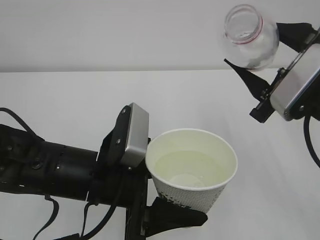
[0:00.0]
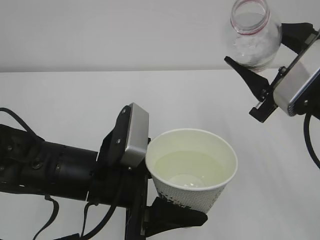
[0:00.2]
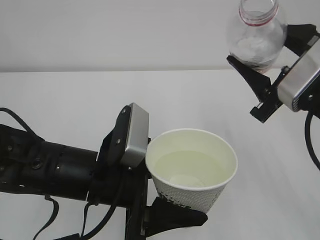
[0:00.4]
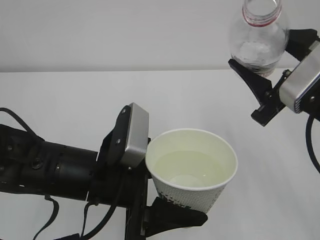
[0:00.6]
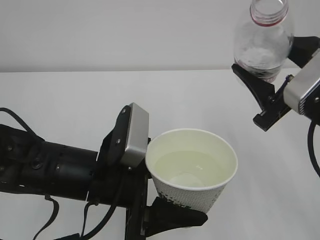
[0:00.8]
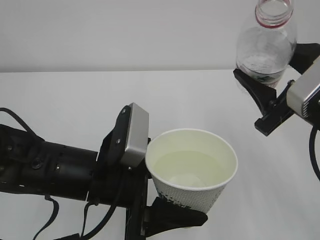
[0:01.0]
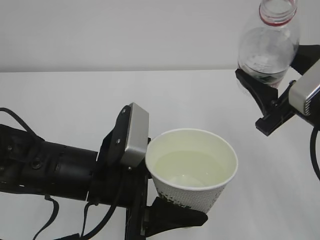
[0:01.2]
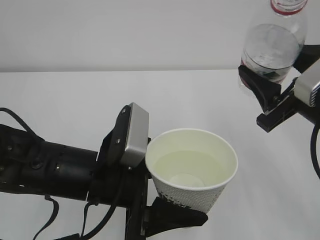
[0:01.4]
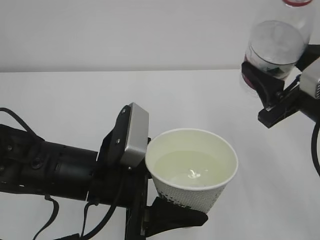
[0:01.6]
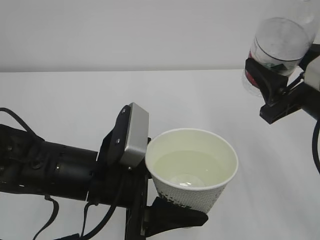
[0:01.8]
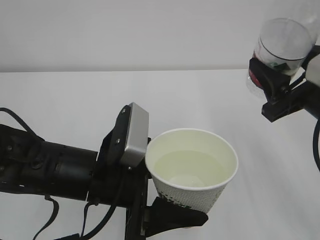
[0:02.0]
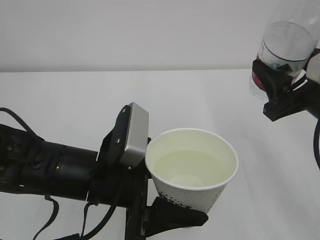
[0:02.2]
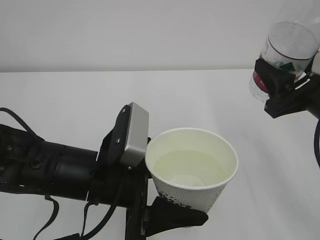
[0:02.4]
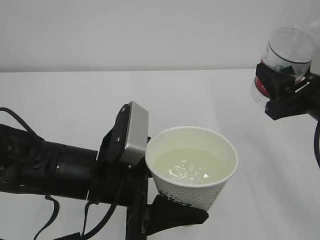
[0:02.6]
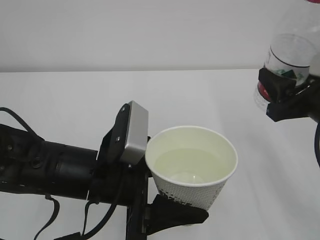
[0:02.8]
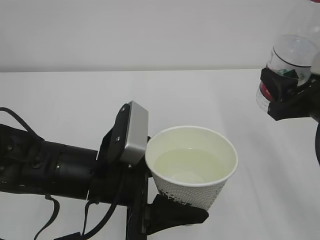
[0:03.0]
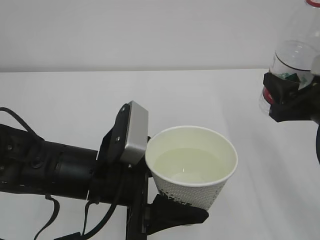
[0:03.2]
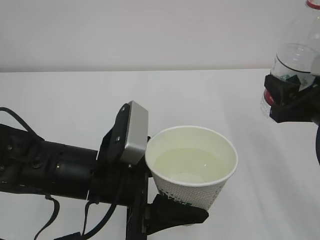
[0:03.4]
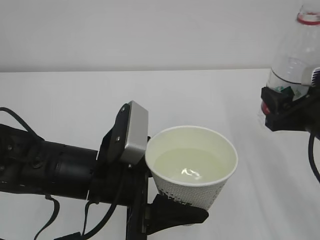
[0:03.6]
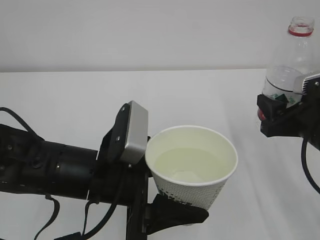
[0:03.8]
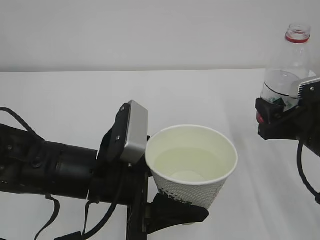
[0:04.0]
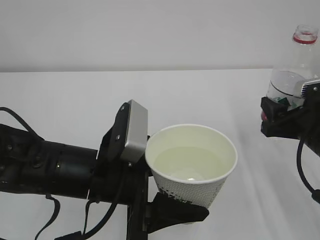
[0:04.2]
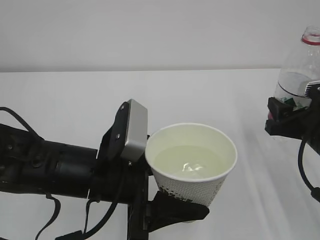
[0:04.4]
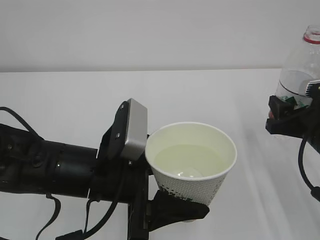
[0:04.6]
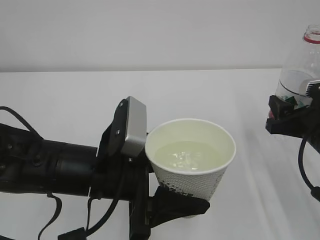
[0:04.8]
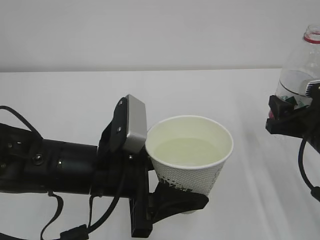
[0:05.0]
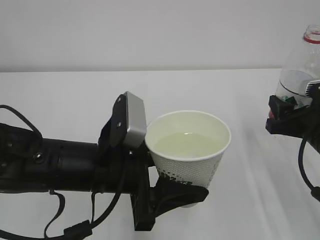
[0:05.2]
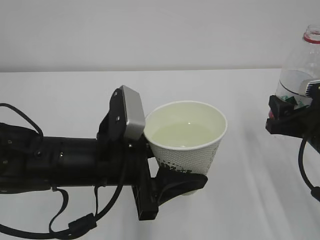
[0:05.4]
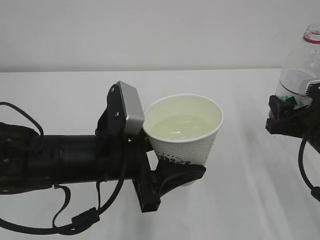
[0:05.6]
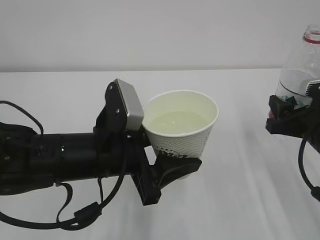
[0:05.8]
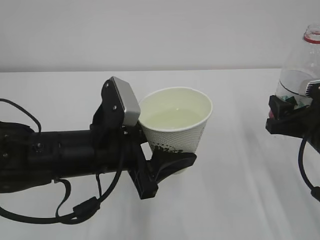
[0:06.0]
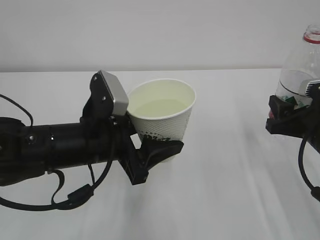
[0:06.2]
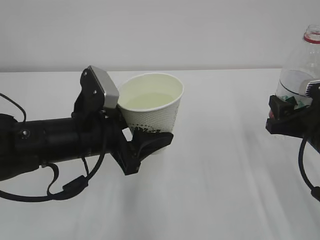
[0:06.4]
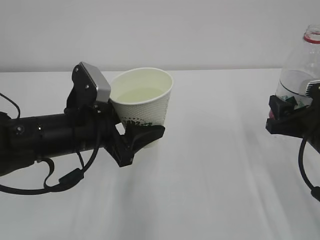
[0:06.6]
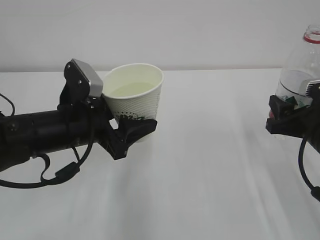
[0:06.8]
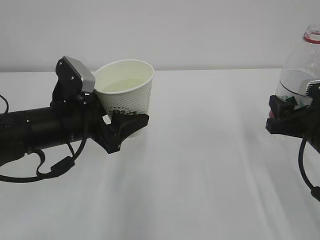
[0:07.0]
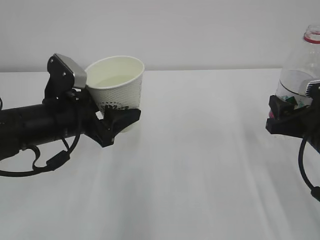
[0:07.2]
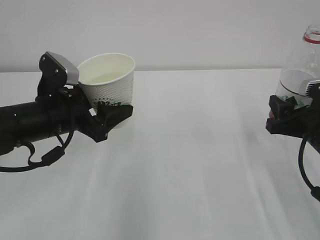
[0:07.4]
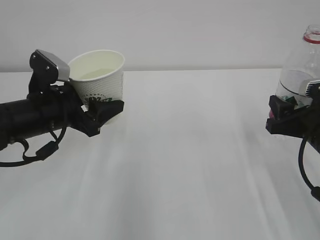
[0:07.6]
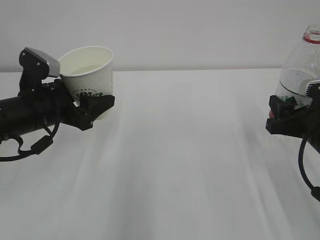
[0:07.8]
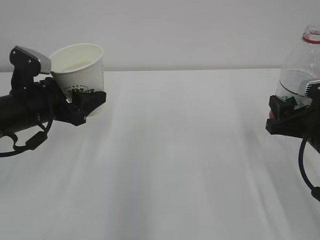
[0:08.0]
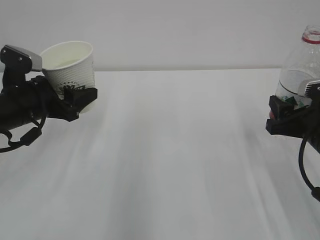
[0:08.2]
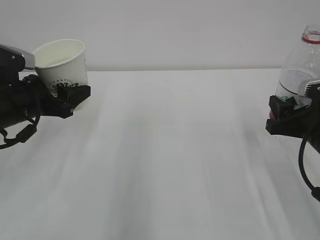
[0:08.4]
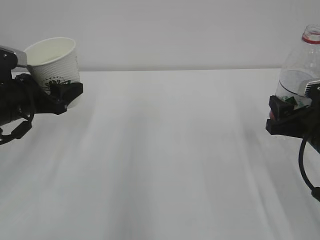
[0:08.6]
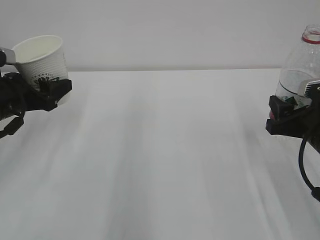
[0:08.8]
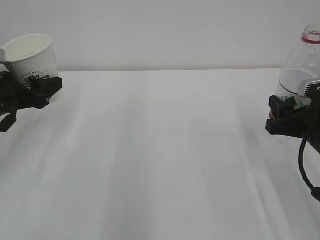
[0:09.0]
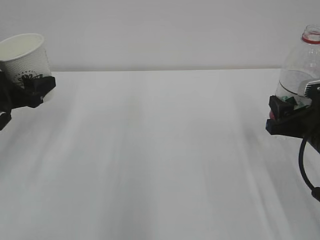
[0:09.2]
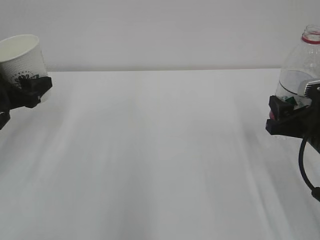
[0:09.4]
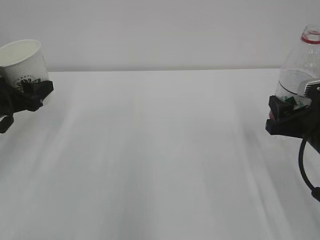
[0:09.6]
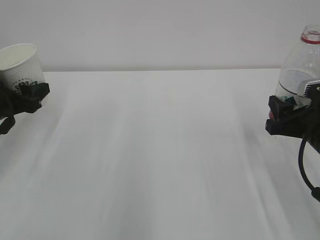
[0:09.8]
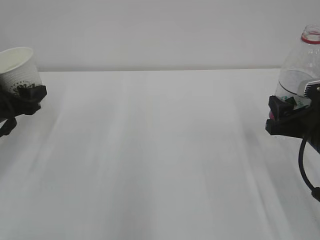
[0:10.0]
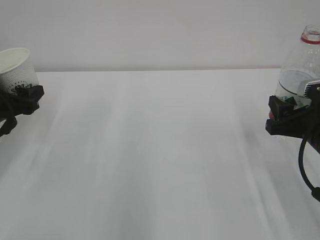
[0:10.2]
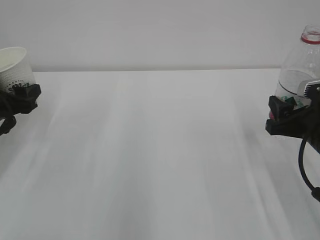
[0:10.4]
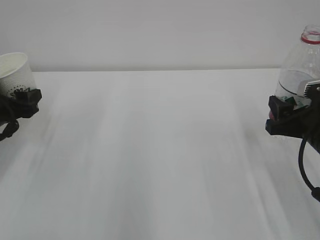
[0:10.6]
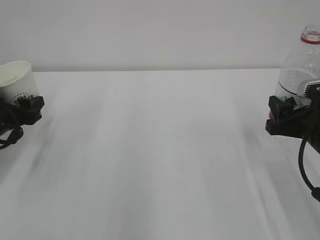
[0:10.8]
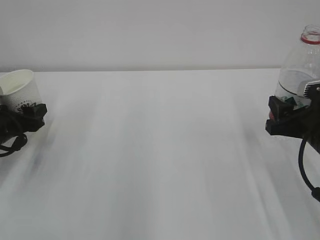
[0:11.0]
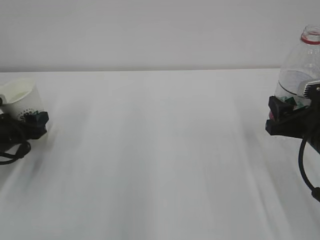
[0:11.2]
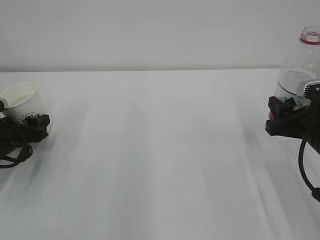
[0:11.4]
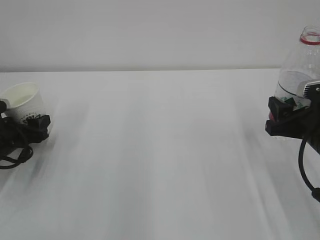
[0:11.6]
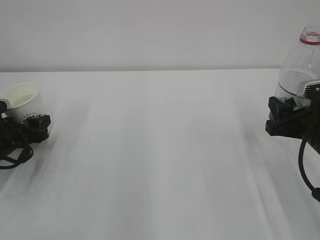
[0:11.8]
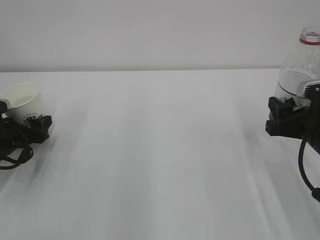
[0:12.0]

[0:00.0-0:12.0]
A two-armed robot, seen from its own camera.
0:03.0 to 0:04.4: The right gripper heads downward, covering some 5 cm.
0:06.0 to 0:07.6: The left gripper moves to the left and forward, roughly 10 cm.
0:07.6 to 0:09.0: The left gripper travels to the left by about 10 cm.
0:09.0 to 0:10.4: The left gripper changes place by approximately 5 cm.
0:10.4 to 0:12.0: The left gripper goes approximately 10 cm downward.

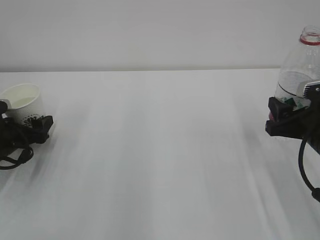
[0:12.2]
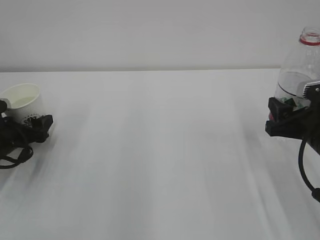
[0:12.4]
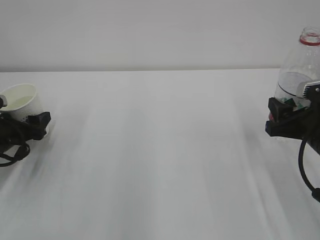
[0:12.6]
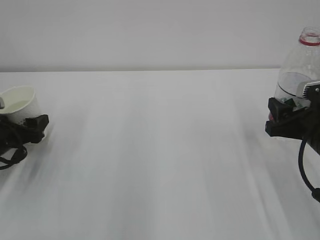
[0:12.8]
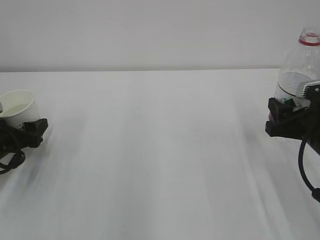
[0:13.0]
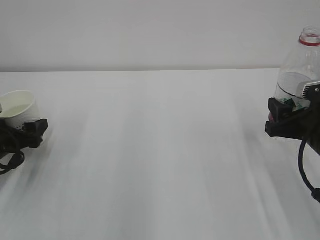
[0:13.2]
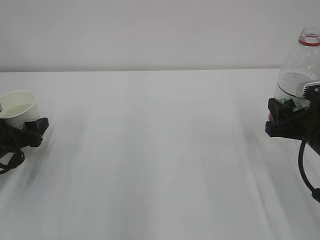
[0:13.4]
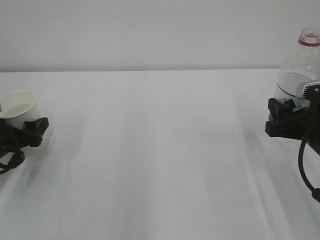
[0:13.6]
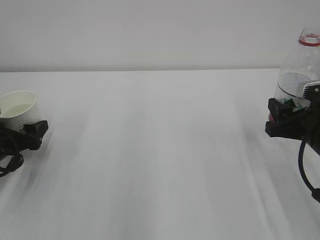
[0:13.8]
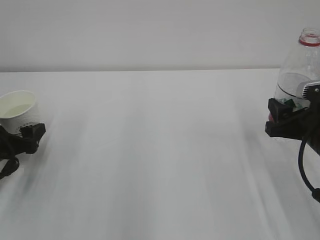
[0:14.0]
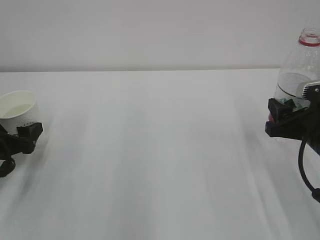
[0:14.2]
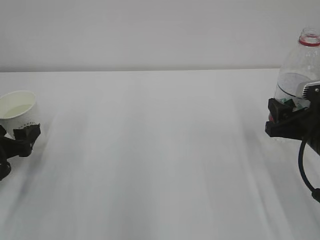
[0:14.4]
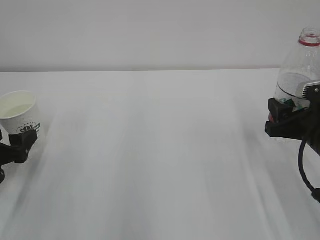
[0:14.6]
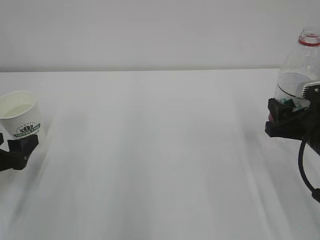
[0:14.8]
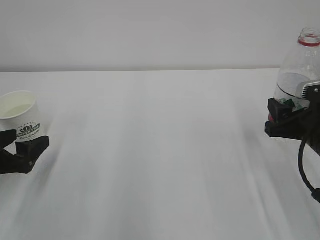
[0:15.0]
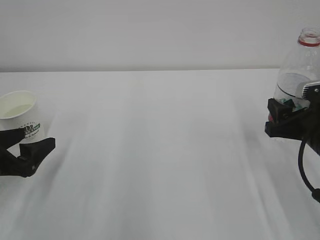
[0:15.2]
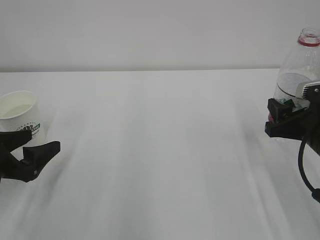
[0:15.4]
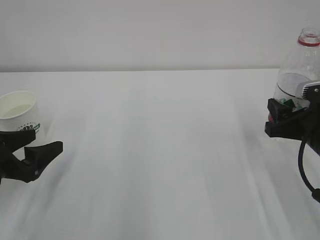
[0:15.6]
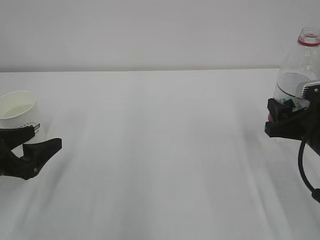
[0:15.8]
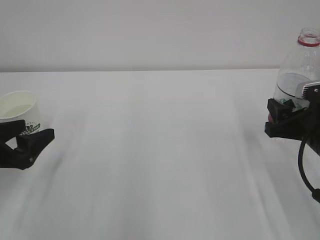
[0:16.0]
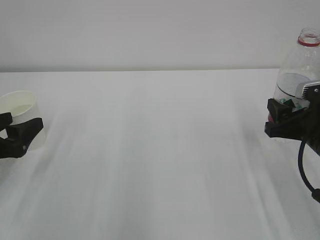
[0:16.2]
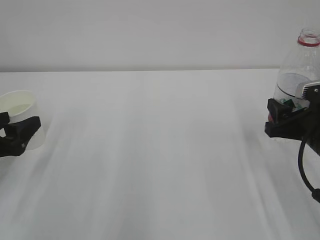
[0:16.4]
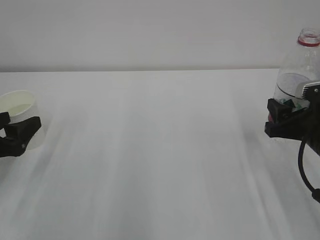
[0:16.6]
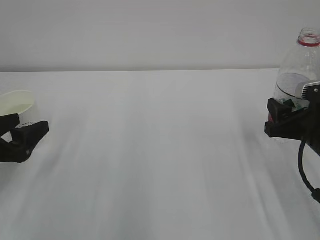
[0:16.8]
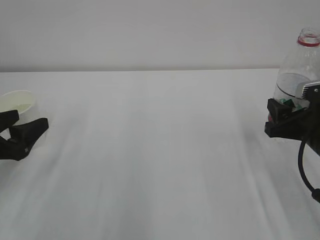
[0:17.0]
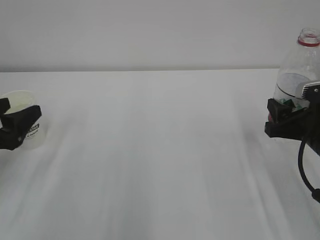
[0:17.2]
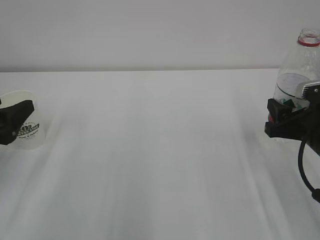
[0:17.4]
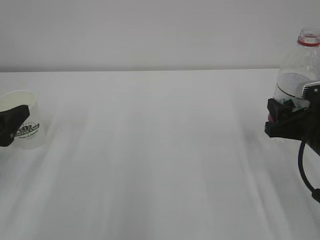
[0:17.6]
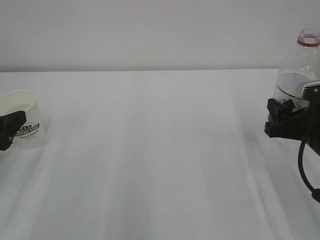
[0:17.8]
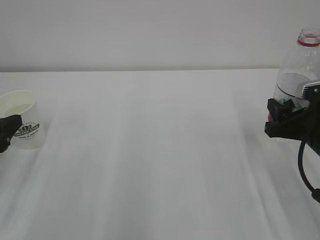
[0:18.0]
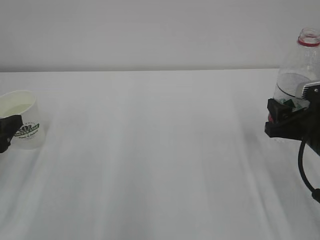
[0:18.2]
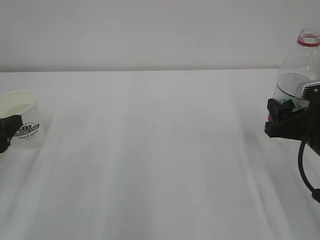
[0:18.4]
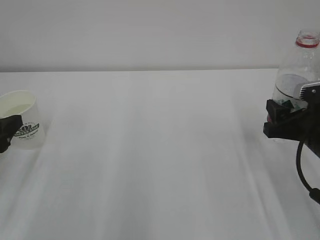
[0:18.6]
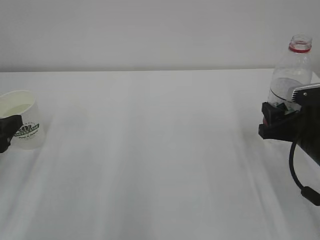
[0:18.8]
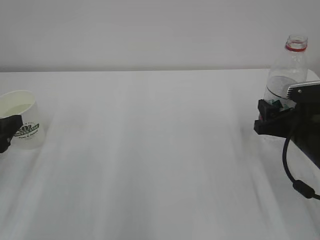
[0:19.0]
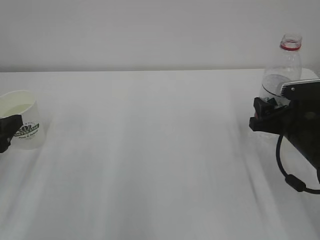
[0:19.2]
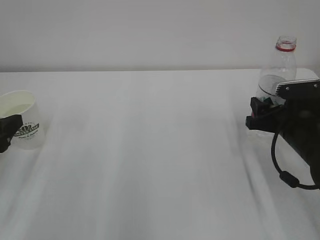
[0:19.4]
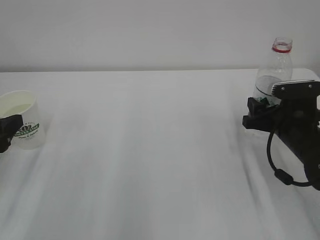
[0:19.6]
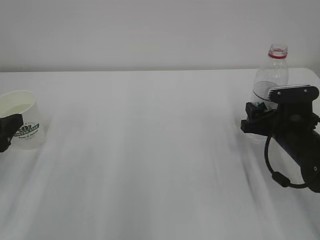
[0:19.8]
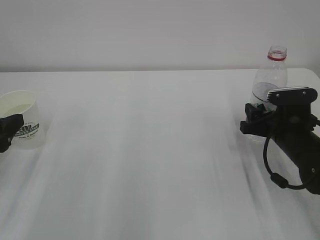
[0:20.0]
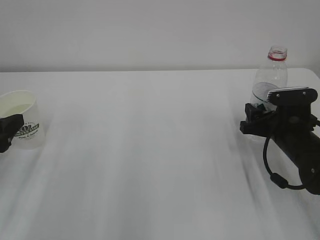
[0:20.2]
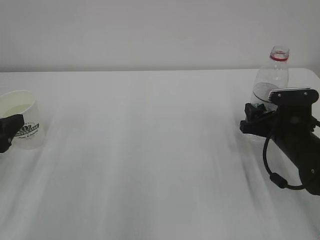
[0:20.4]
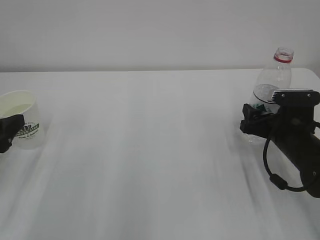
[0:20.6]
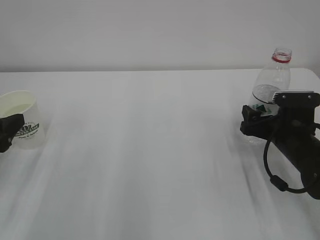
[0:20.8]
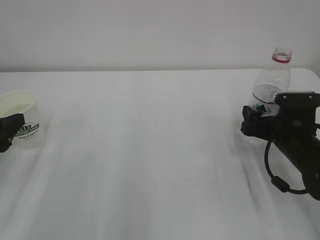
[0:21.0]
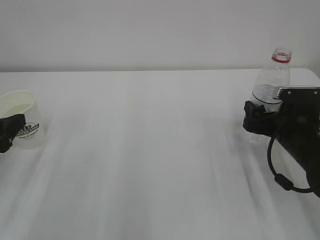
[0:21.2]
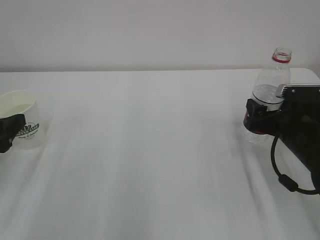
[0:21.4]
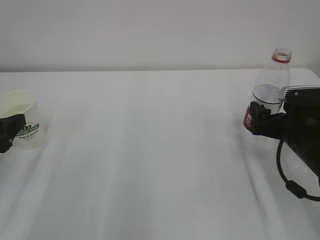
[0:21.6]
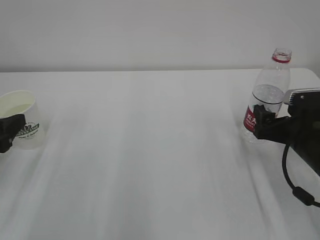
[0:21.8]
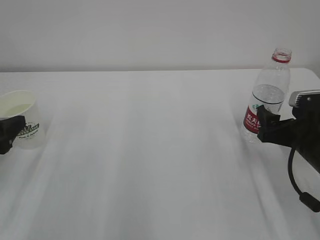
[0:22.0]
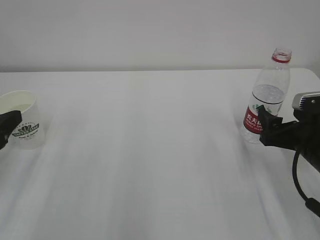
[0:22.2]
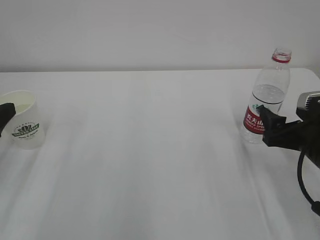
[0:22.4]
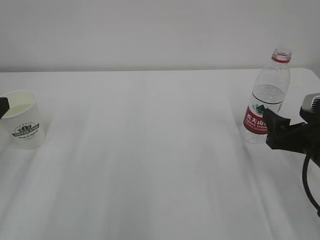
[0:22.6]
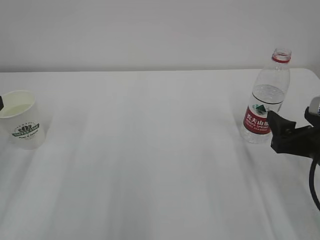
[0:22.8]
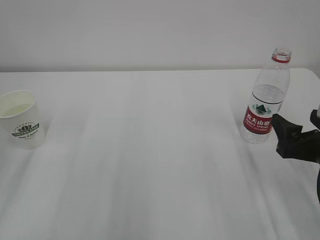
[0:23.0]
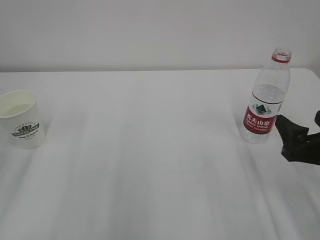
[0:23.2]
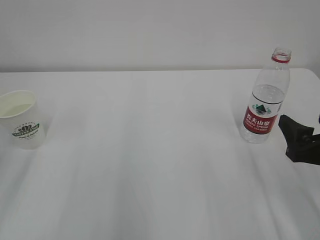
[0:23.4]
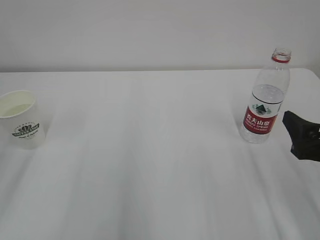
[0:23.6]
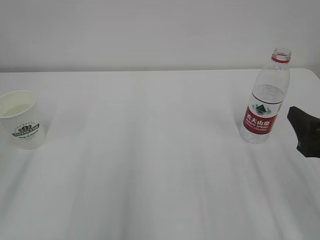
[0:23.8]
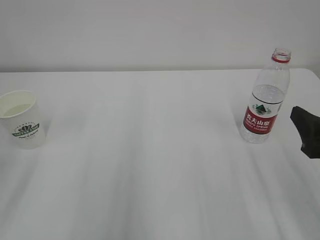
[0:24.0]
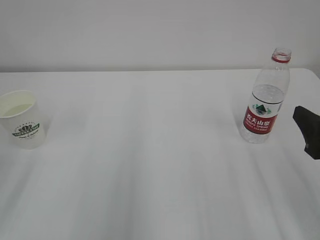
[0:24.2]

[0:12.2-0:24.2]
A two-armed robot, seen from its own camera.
0:12.2 to 0:13.8: There are only small adjustments of the grippers.
0:13.8 to 0:15.2: The left gripper moves backward, about 5 cm.
0:15.2 to 0:18.2: The grippers move only a little.
0:18.2 to 0:19.8: The right gripper heads forward and downward, covering about 10 cm.
0:19.8 to 0:21.2: The right gripper opens.
0:21.2 to 0:22.6: The right gripper travels backward by about 5 cm.
0:22.6 to 0:24.2: The right gripper moves backward and upward, some 10 cm.
